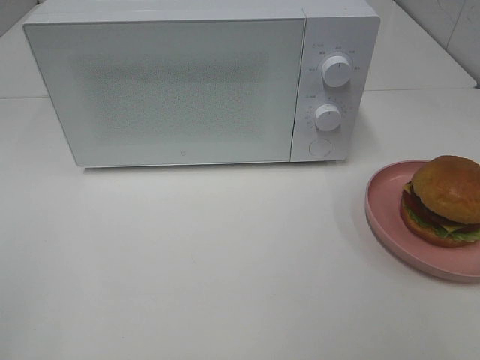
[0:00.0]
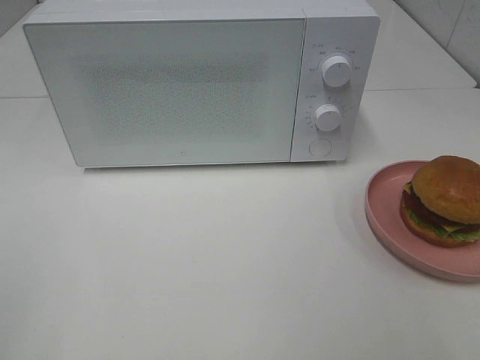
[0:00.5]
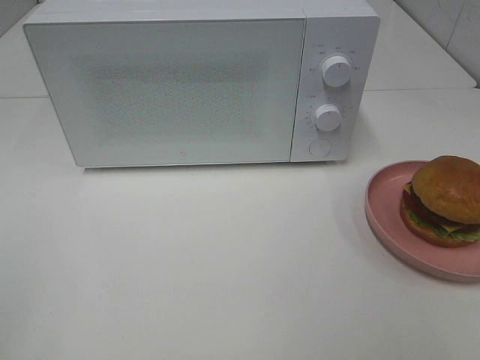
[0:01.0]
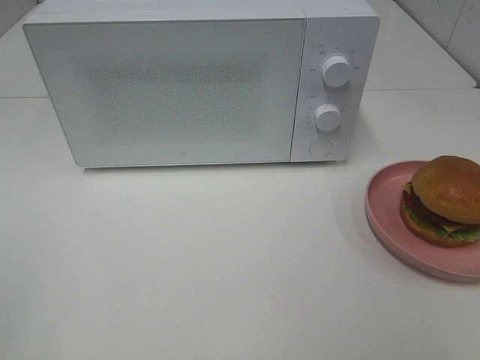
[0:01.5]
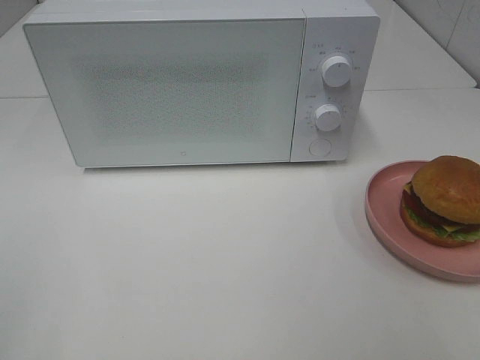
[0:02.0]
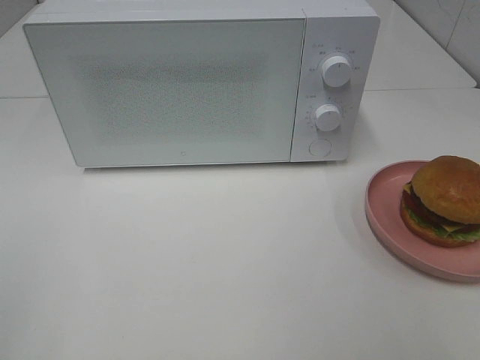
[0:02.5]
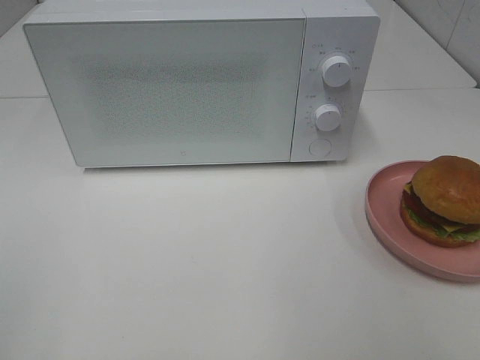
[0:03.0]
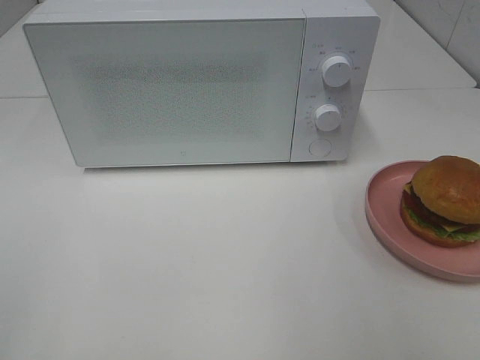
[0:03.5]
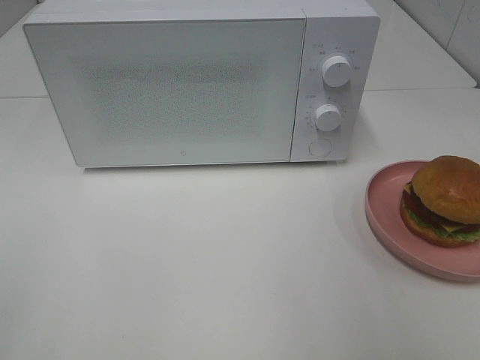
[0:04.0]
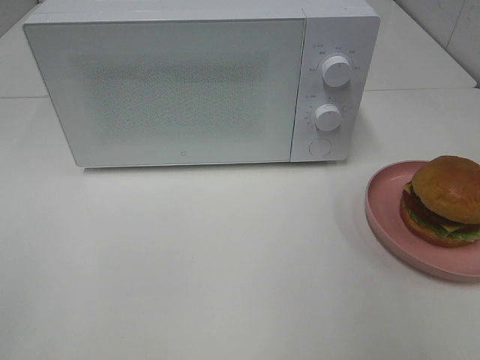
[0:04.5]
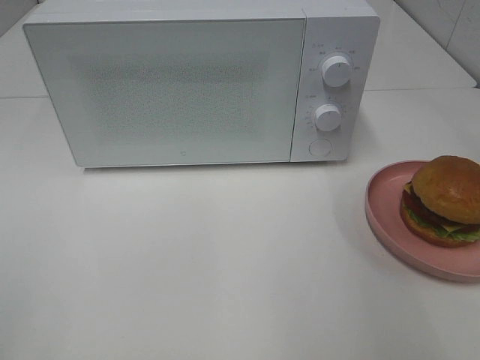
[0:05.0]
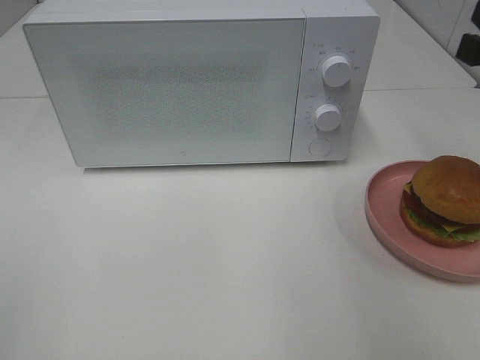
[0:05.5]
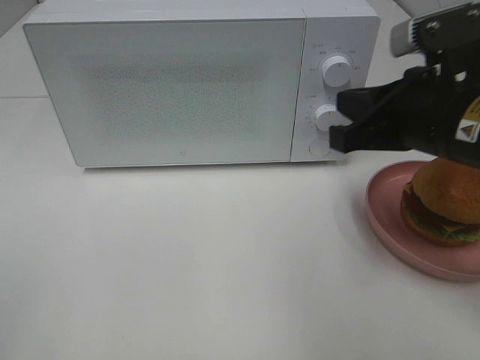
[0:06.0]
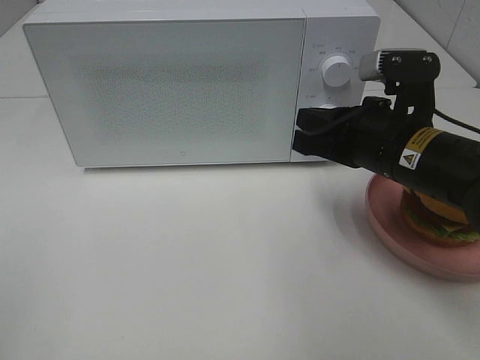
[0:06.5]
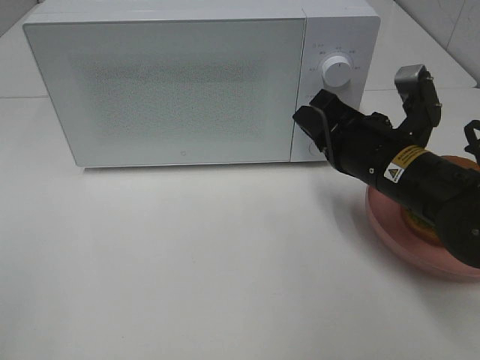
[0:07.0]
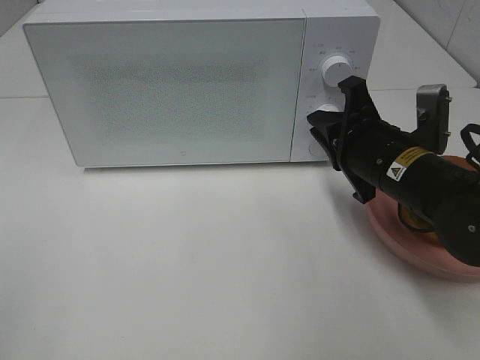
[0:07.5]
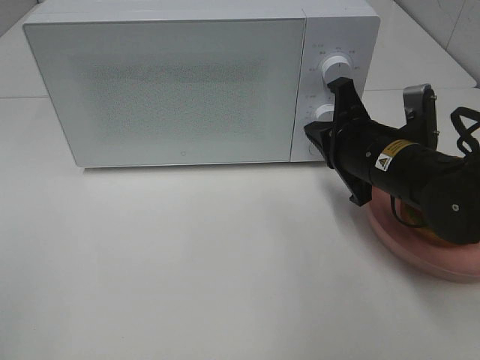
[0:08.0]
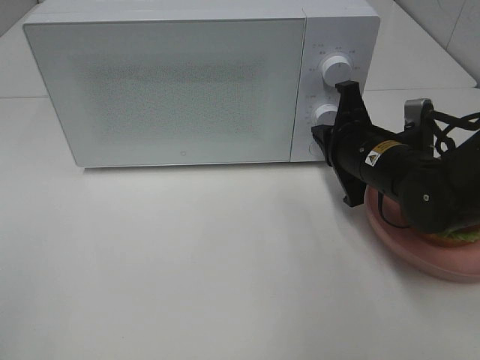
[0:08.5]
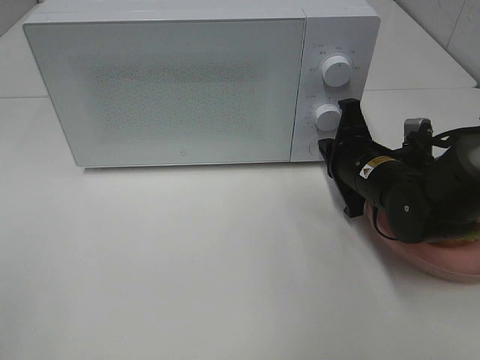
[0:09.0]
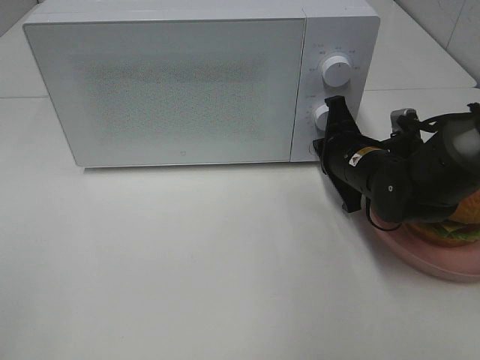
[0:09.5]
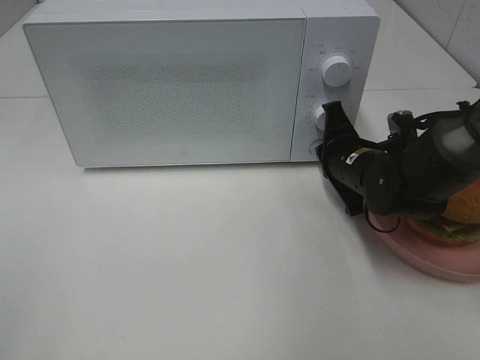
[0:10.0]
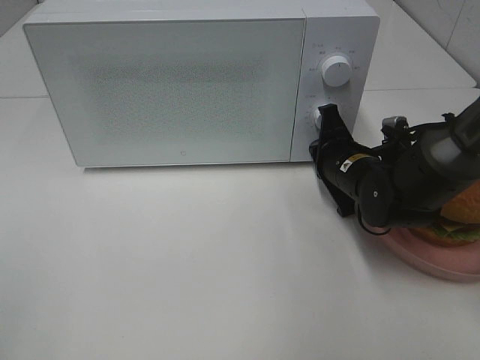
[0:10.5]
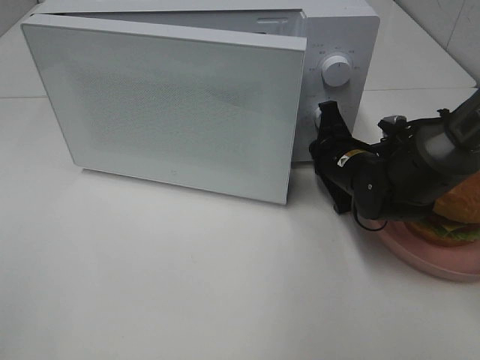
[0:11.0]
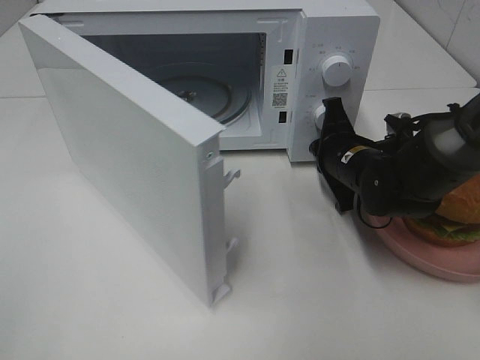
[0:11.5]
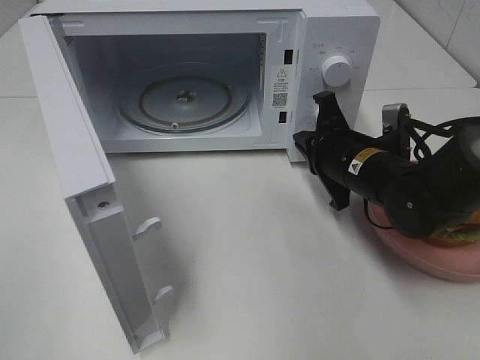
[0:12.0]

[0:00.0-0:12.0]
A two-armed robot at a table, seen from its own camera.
Task of the whole recording: Heat the burger.
Step, 0:00.0 to 0:11.5: Right hand: press the switch.
0:00.0 to 0:02.0: Neither gripper changes place.
0:04.0 to 0:06.0: The right gripper heads forward, downward and to the left, covering some 25 cm, and closes.
0:06.0 to 0:08.0: The right gripper is displaced downward and forward by about 10 cm.
0:08.0 to 0:10.0: The right gripper moves forward and downward, roughly 10 cm.

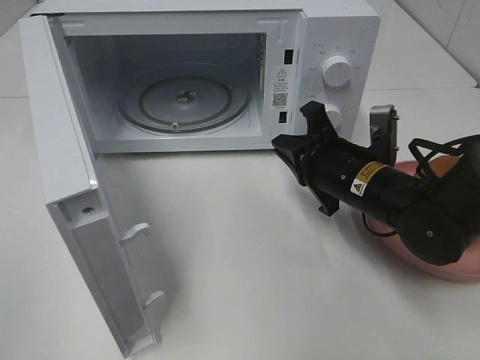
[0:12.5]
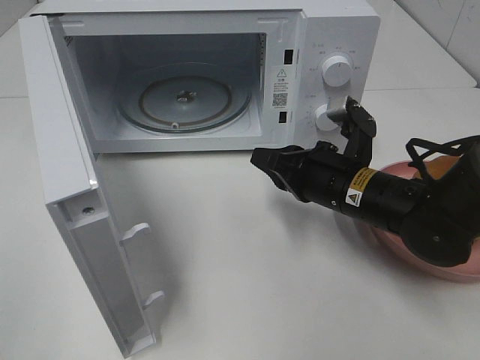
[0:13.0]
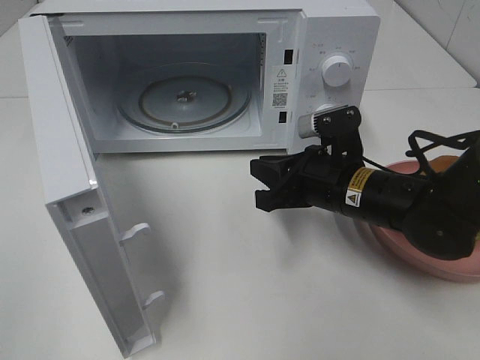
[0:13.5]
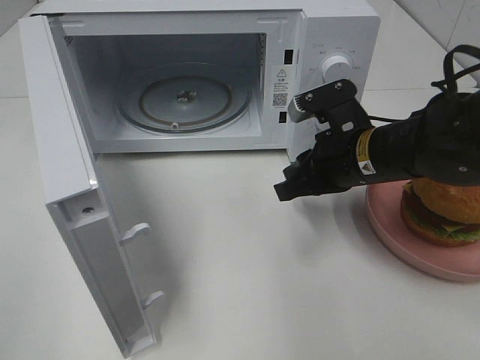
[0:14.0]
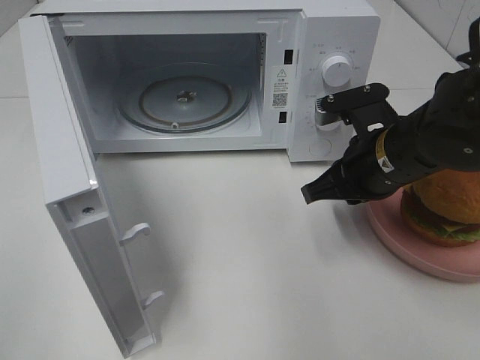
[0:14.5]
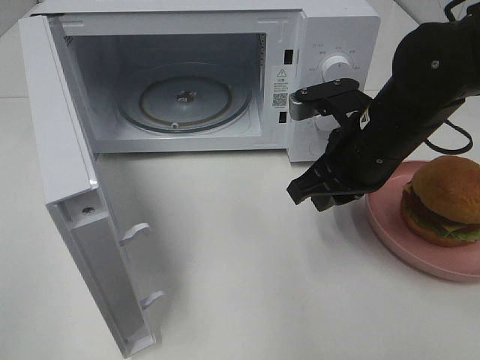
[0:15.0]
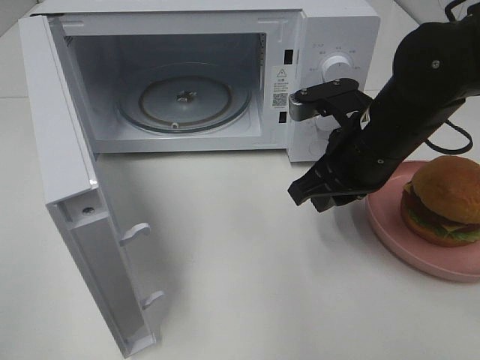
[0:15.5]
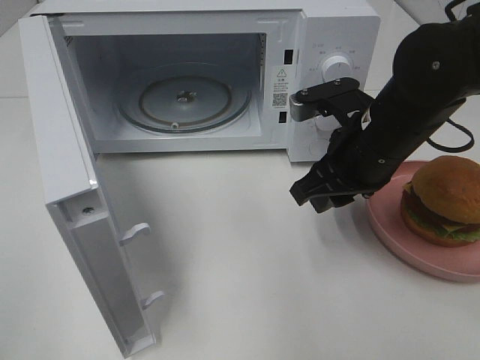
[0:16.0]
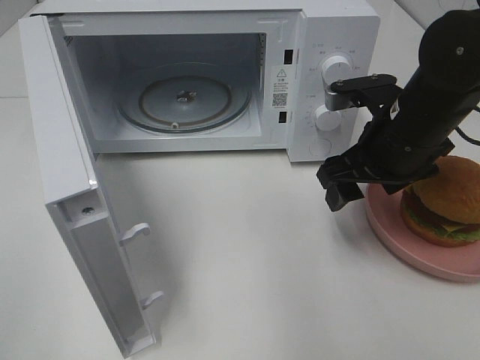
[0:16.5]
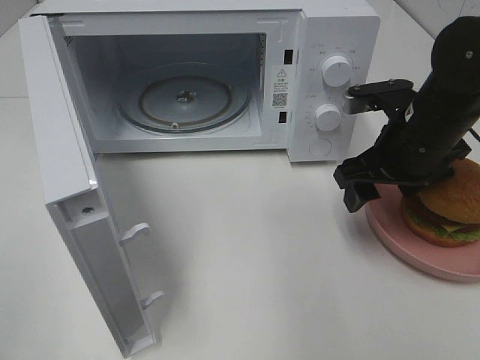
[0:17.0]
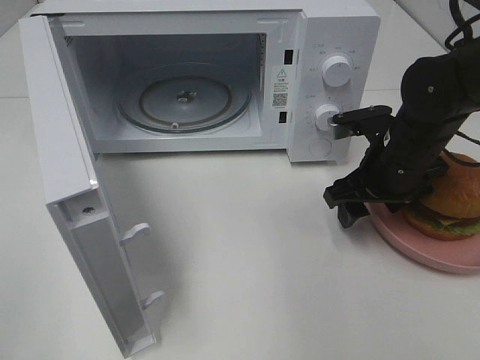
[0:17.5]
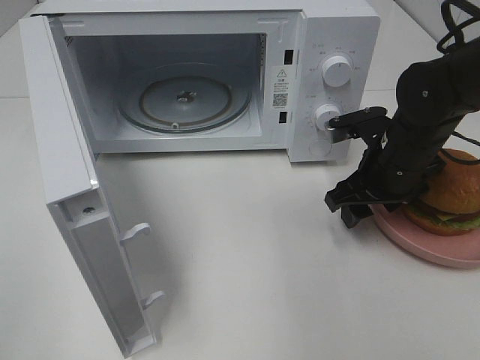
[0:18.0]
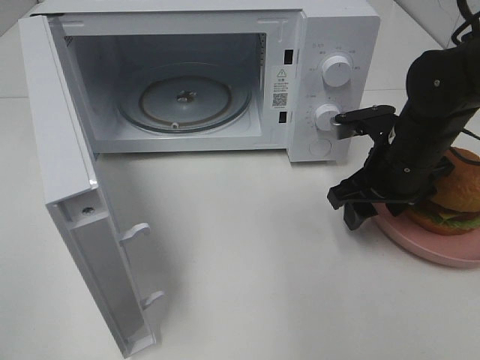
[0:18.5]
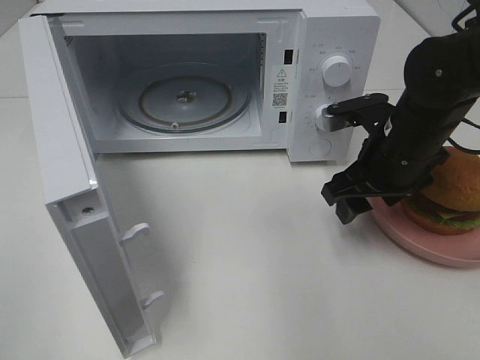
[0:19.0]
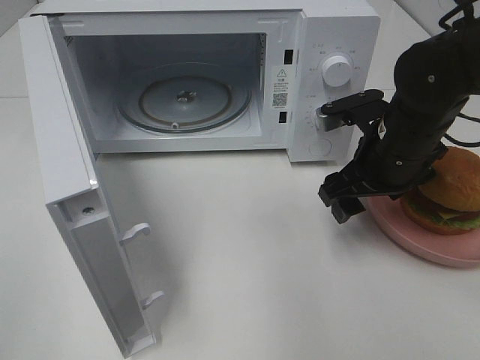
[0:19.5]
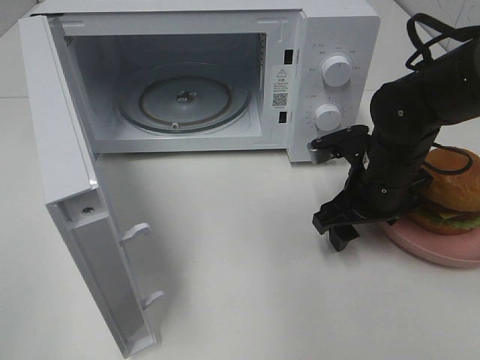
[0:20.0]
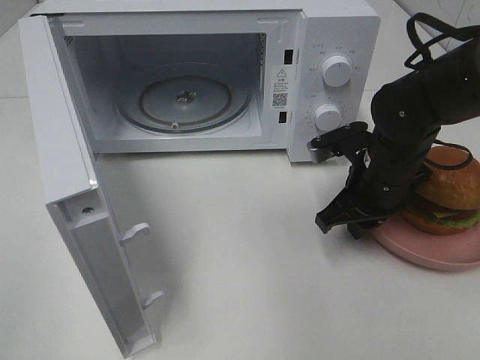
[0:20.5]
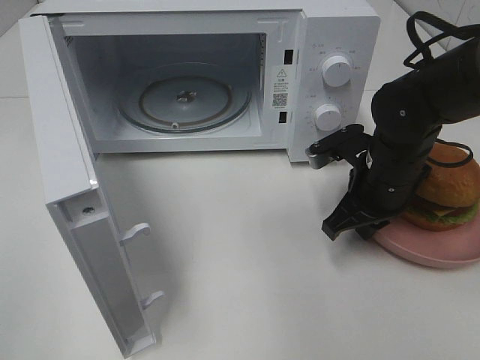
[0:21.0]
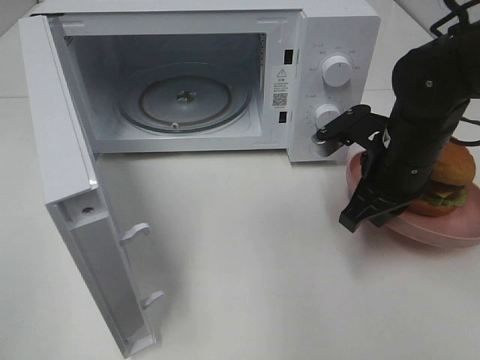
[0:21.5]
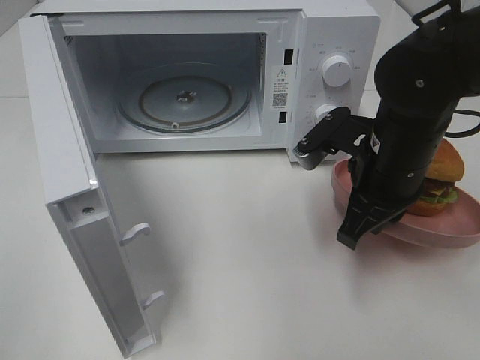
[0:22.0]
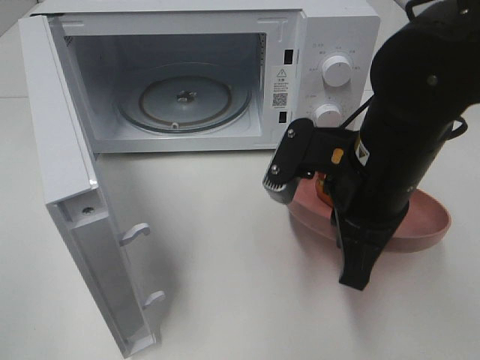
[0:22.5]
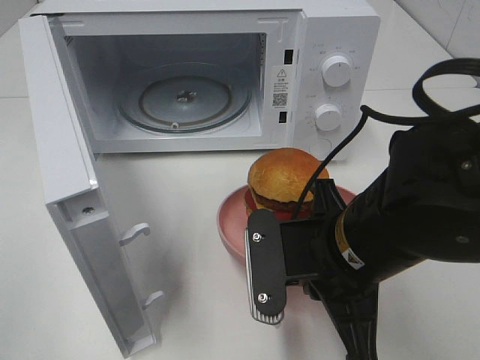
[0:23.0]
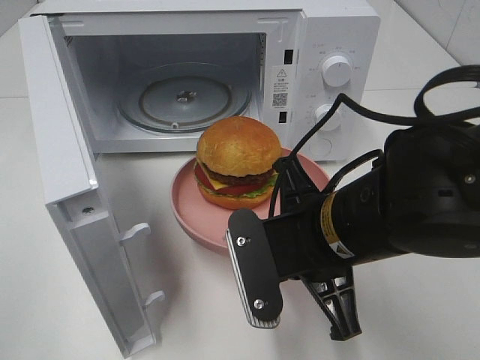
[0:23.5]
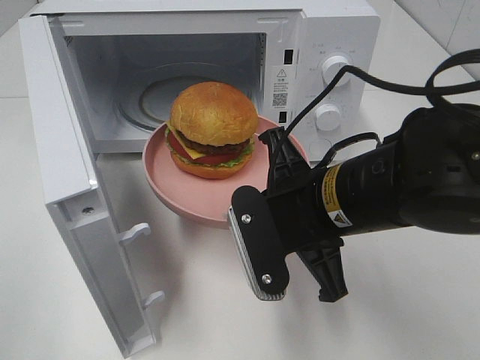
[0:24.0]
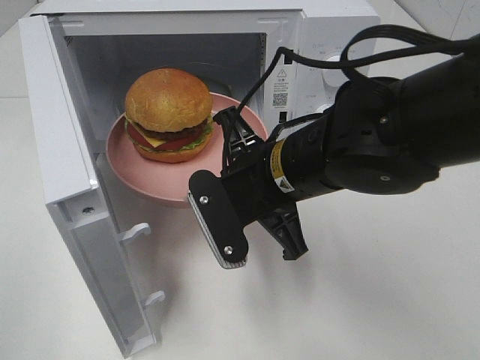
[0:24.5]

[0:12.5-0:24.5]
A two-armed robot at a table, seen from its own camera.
Task of the whole recording: Heat the burger.
Step, 0:12.5 to 0:20.5: Right hand: grab the plate with the hamburger.
0:14.5 to 0:16.5: The right gripper opens up.
0:16.5 to 0:18.5: The right gripper ends up some 5 cm from where it was.
0:18.5 to 0:20.5: The right gripper closes its fingers.
0:20.5 to 0:22.5: The right gripper heads backward and upward, covering about 10 cm.
0:22.5 to 0:24.5: The right gripper is displaced to the left by roughly 5 cm.

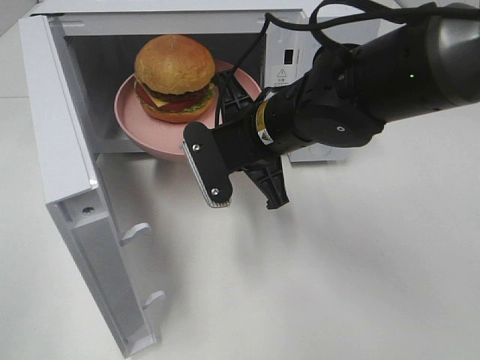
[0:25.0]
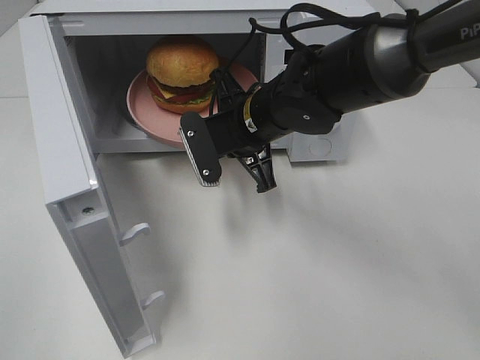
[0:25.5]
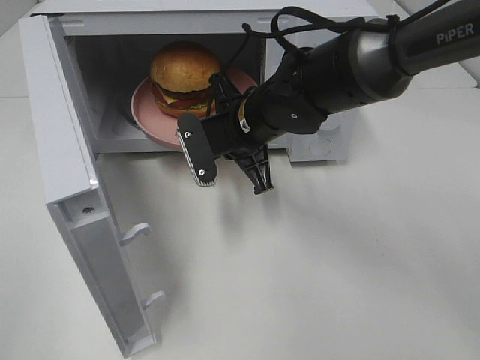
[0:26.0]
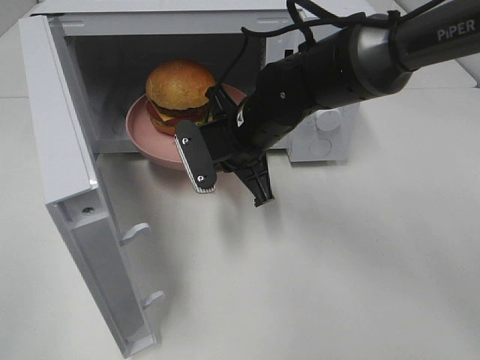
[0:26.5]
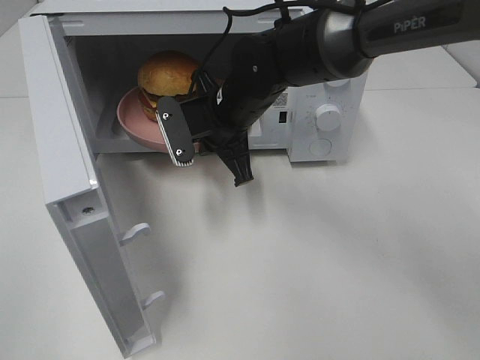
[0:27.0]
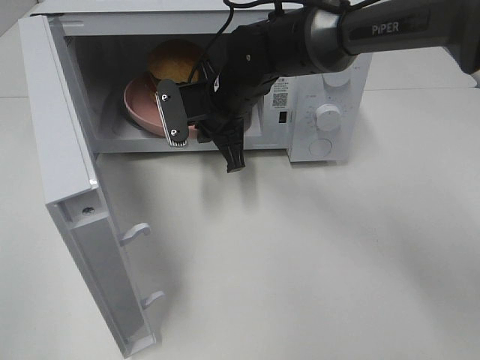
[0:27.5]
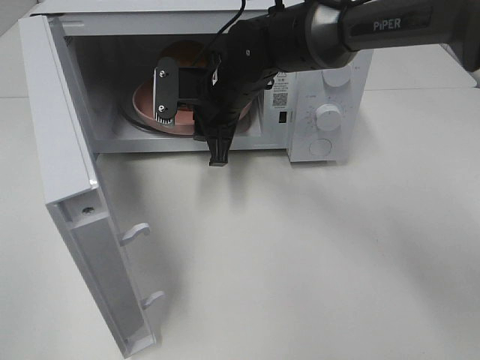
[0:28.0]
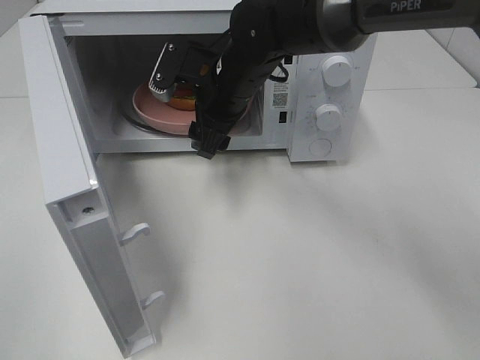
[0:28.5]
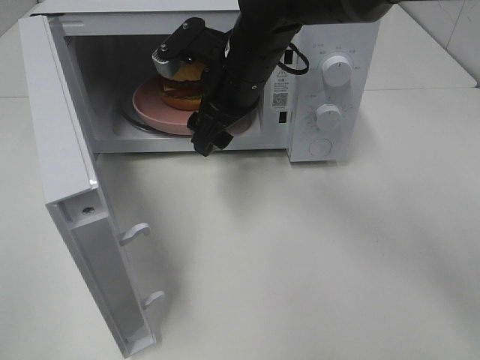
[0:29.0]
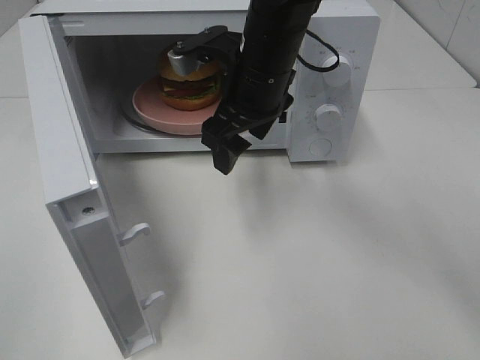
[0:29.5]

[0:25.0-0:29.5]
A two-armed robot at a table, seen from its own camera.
Task of the whole recording: Heat the burger.
Step, 0:25.0 to 0:27.5: Right hand: place the plate in the microwave.
0:25.0 to 0:27.0: The right gripper heads forward, covering approximately 5 cm.
0:27.0 to 0:29.5: The right gripper heads upward, covering approximately 5 cm, and opens its fingers.
